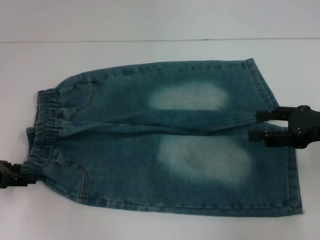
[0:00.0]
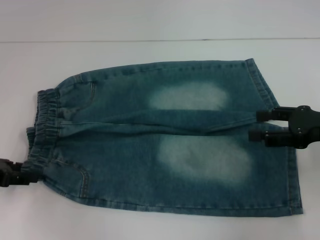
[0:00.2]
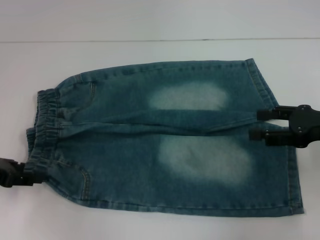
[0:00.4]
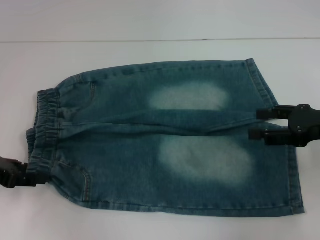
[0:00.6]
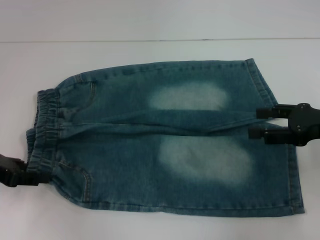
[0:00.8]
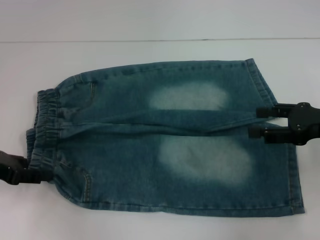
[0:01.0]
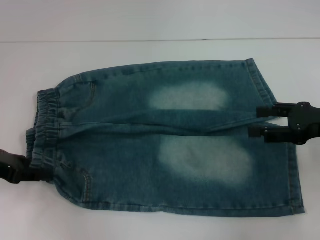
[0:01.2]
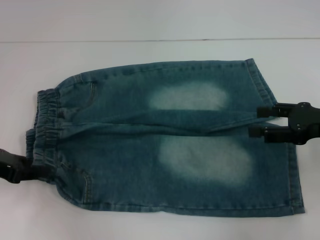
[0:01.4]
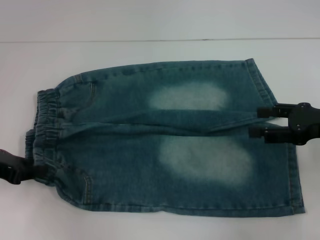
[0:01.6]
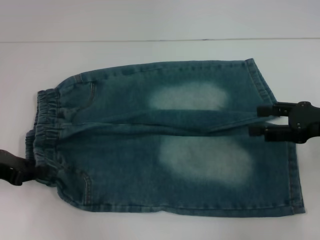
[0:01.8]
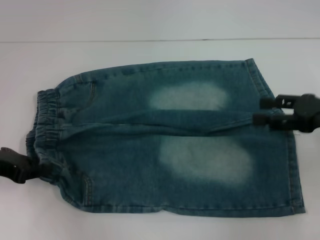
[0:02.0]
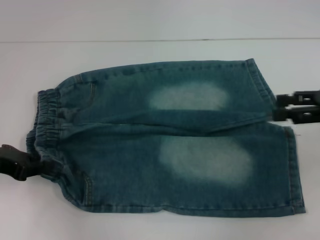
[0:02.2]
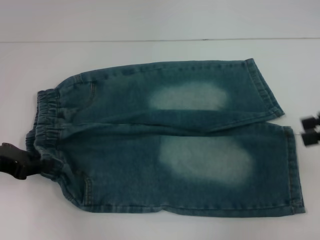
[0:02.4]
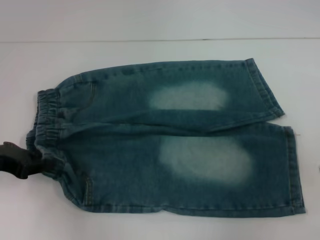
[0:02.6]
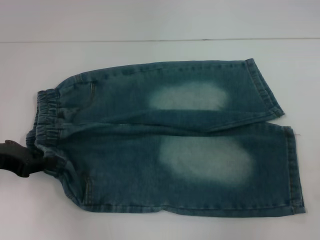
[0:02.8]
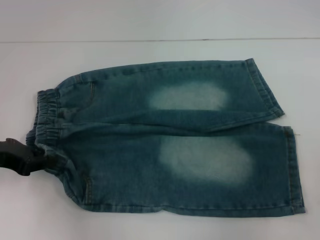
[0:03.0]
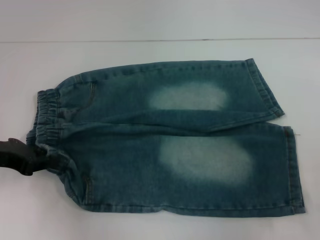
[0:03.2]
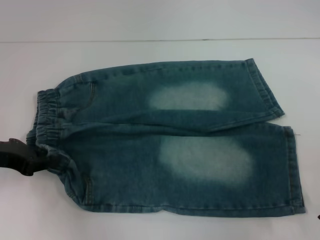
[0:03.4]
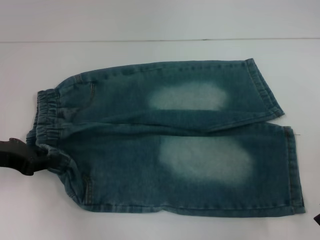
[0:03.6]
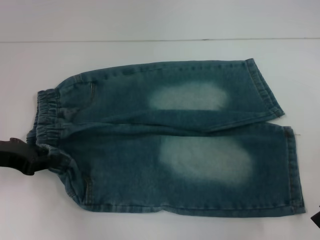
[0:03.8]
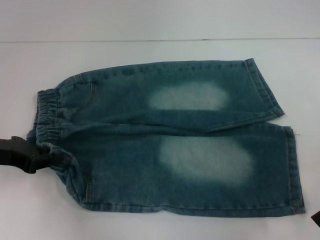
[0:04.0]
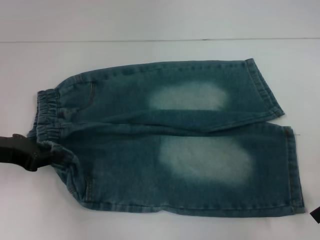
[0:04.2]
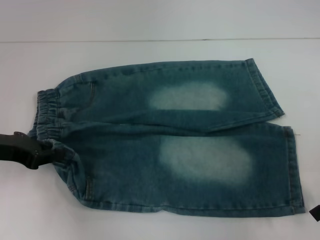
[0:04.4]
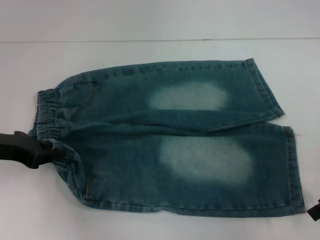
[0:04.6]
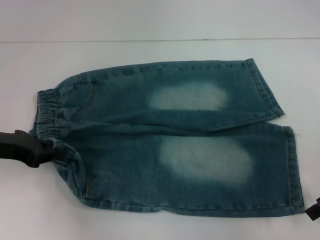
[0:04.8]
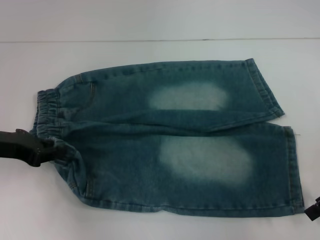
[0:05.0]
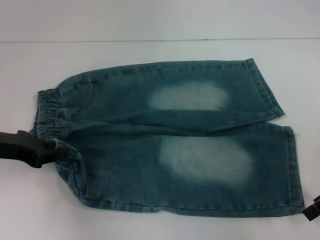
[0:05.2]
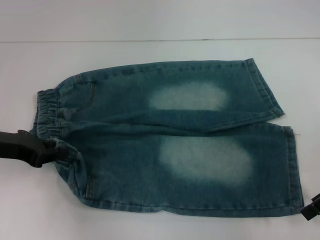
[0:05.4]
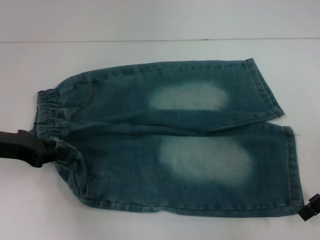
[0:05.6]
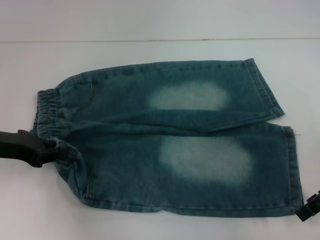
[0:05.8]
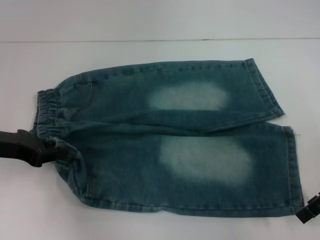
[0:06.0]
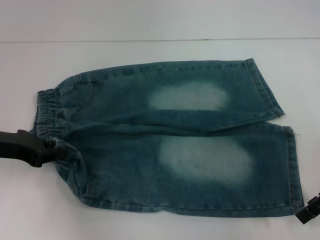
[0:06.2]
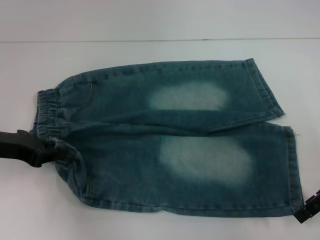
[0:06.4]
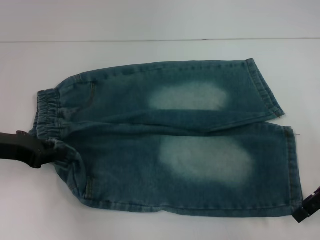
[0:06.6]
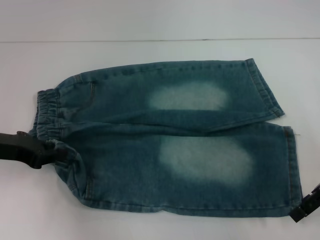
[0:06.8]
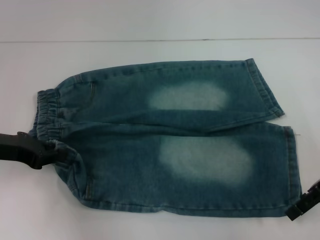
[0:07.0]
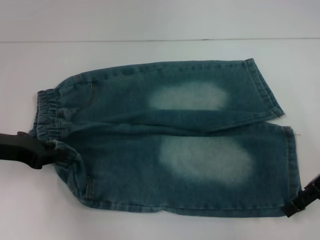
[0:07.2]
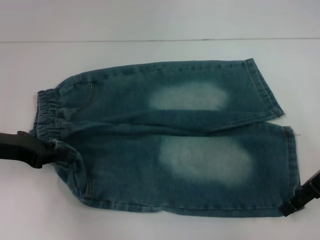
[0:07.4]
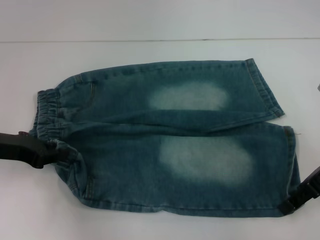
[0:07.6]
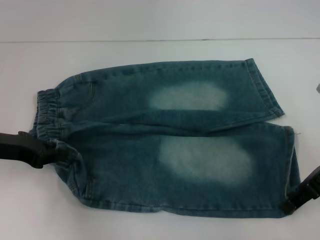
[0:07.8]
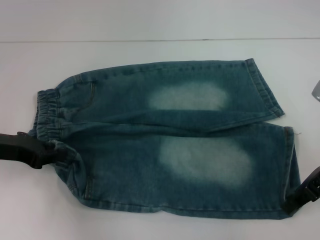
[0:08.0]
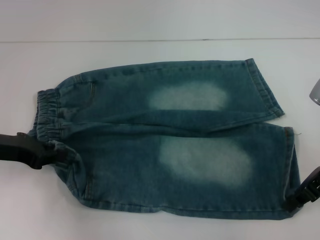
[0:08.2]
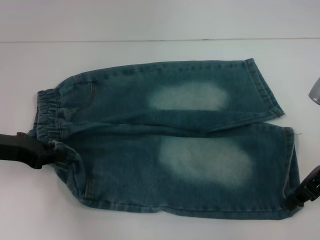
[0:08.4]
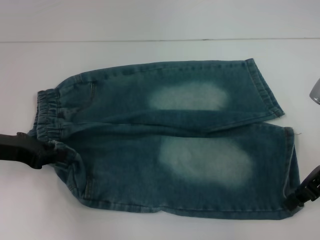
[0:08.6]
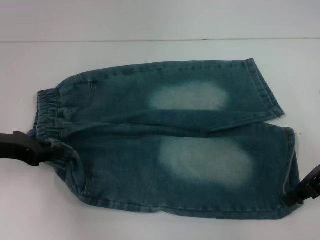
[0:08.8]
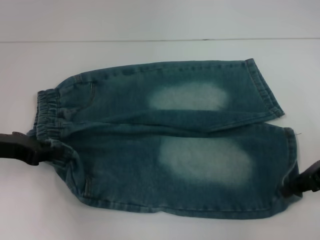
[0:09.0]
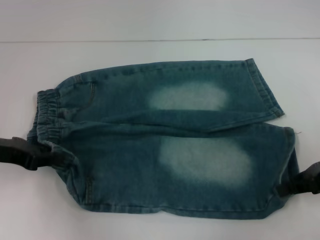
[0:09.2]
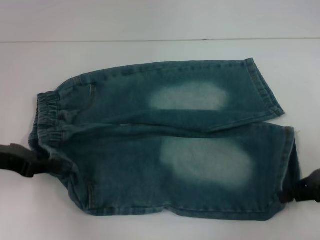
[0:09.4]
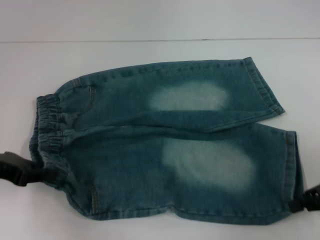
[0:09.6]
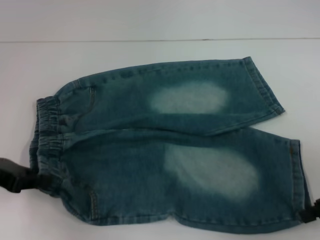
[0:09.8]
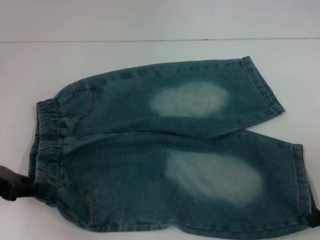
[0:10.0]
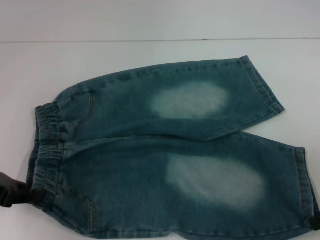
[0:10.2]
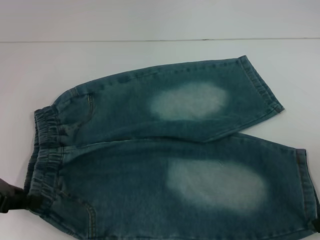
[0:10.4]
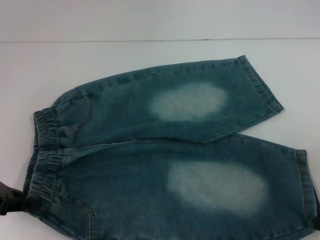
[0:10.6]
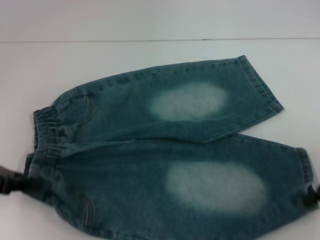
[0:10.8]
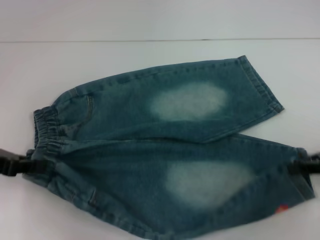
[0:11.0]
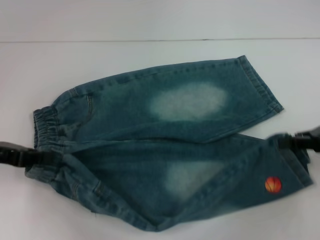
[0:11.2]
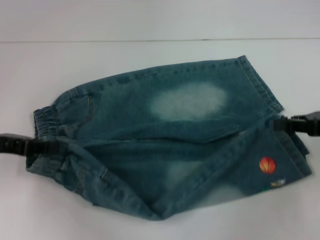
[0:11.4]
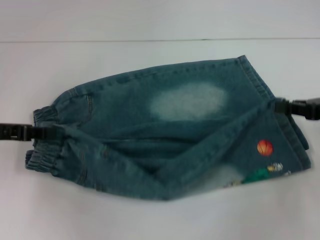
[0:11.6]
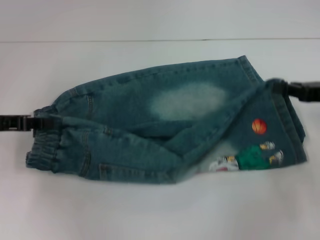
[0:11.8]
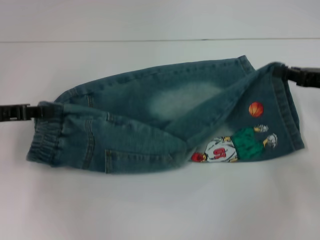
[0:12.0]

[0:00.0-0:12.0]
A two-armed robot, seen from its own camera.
Step, 0:01.8 to 0:08.6: Grab the lower right pant leg with your right hand.
0:00.0 to 0:01.6: There are only small adjustments of the grippers.
0:01.6 to 0:03.0: The right gripper shifts by roughly 5 cm.
0:03.0 to 0:06.0: The grippers stay close to where they were, moving slightly.
0:06.0 to 0:07.6: The grippers make only small movements.
0:07.6 to 0:09.0: The right gripper closes.
0:09.0 to 0:10.4: The left gripper ends up about 5 cm from where it was. The right gripper heads backward, covering about 5 cm.
0:10.4 to 0:12.0: The left gripper goes roughly 5 cm forward. Meanwhile the right gripper heads forward, covering some 10 cm.

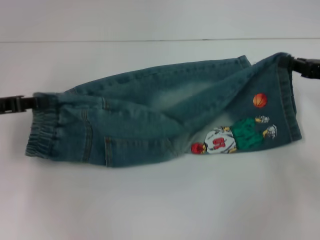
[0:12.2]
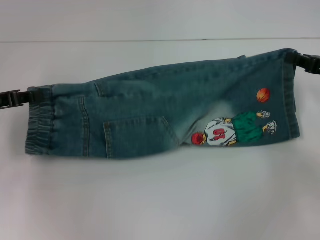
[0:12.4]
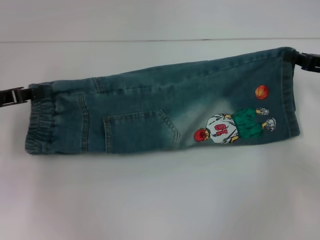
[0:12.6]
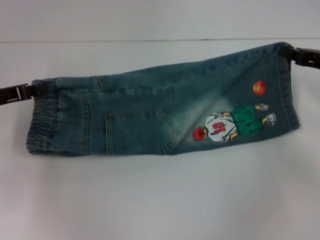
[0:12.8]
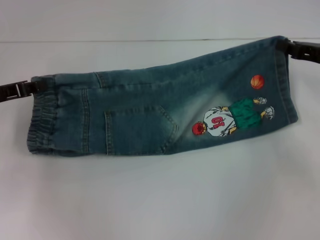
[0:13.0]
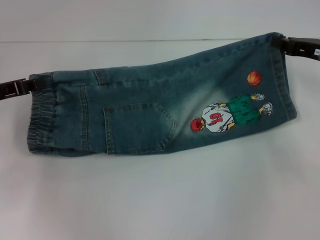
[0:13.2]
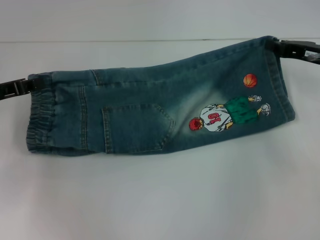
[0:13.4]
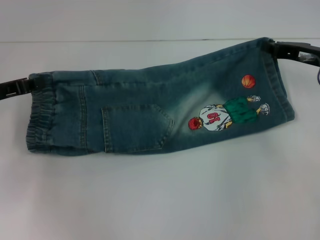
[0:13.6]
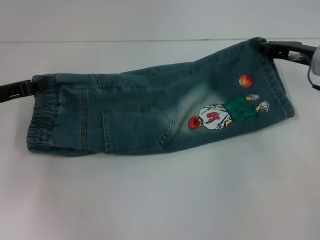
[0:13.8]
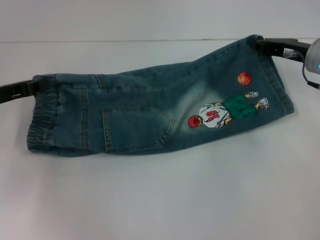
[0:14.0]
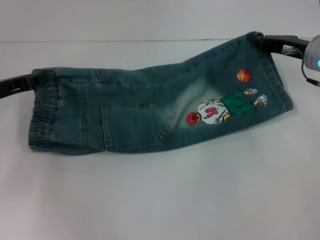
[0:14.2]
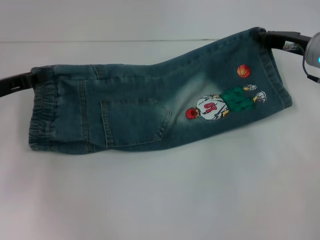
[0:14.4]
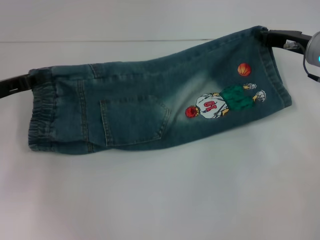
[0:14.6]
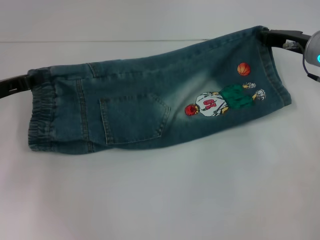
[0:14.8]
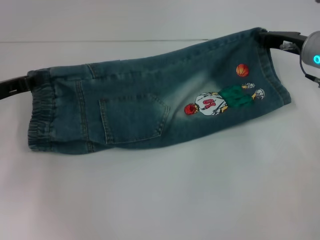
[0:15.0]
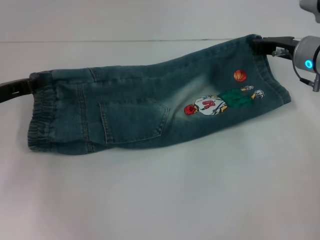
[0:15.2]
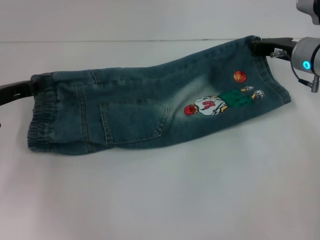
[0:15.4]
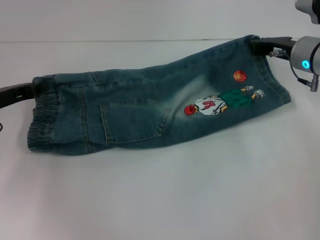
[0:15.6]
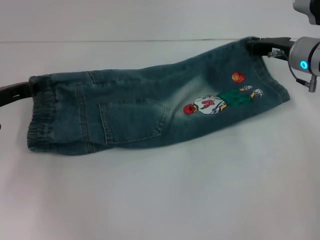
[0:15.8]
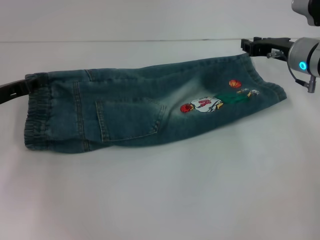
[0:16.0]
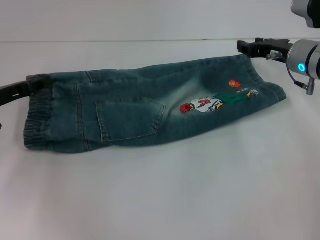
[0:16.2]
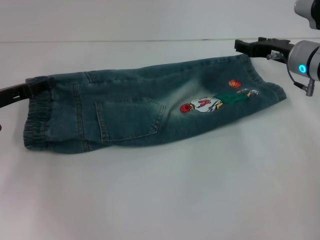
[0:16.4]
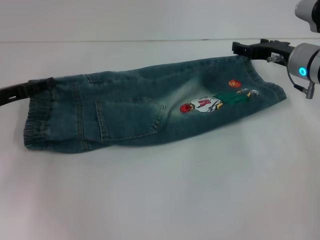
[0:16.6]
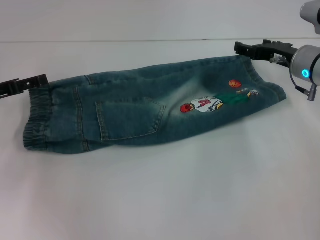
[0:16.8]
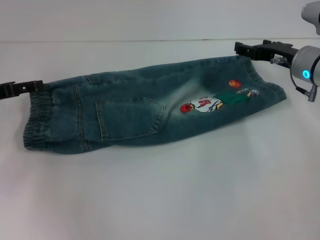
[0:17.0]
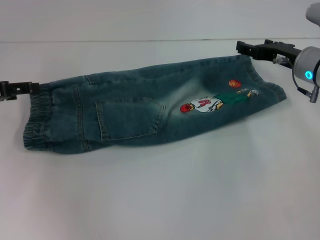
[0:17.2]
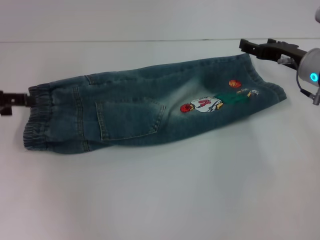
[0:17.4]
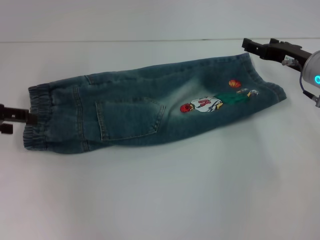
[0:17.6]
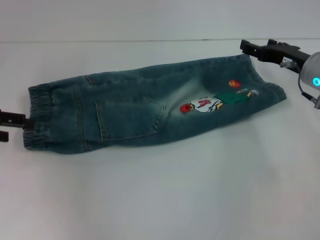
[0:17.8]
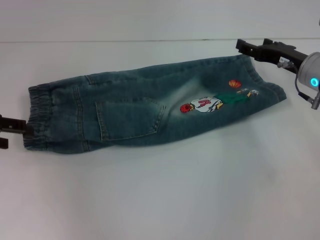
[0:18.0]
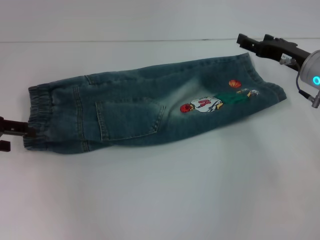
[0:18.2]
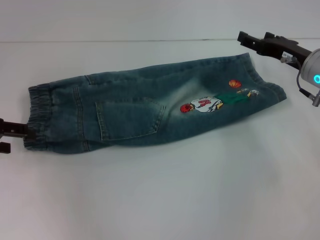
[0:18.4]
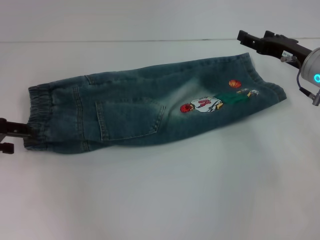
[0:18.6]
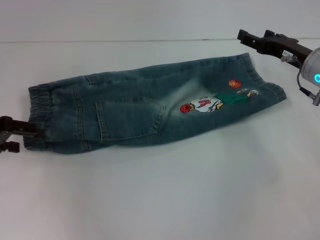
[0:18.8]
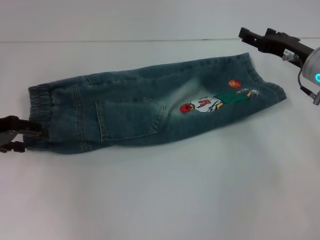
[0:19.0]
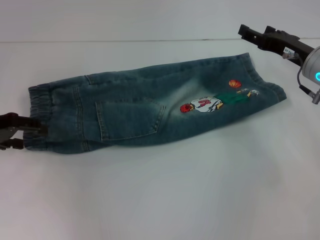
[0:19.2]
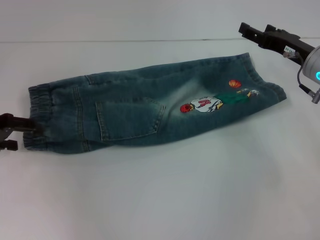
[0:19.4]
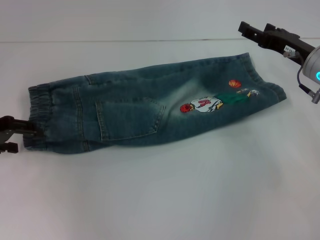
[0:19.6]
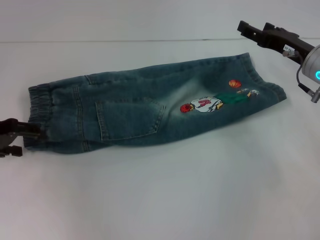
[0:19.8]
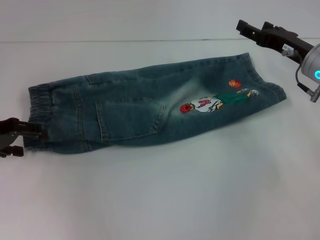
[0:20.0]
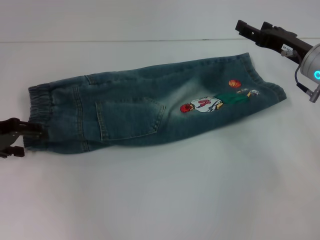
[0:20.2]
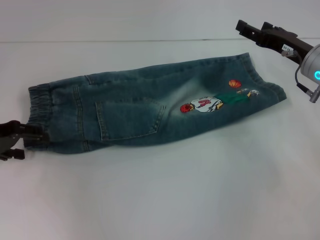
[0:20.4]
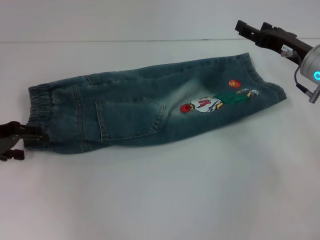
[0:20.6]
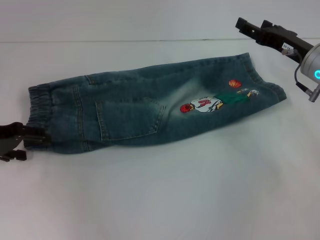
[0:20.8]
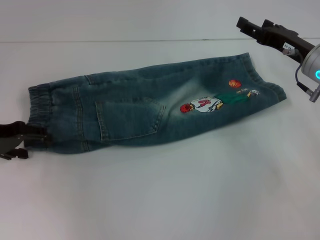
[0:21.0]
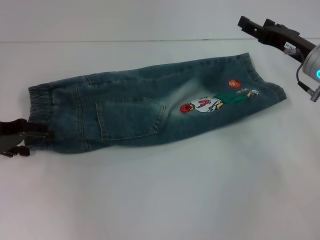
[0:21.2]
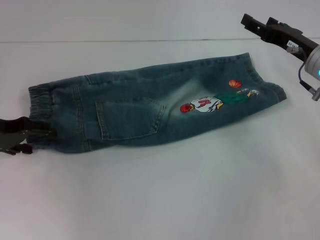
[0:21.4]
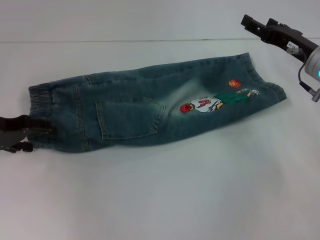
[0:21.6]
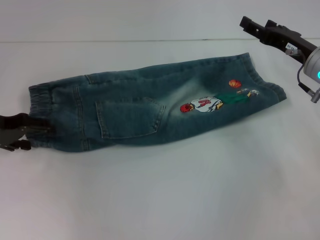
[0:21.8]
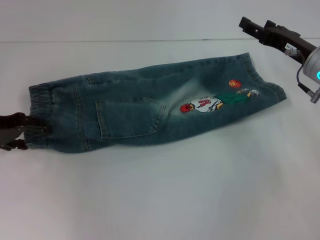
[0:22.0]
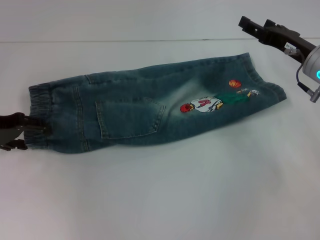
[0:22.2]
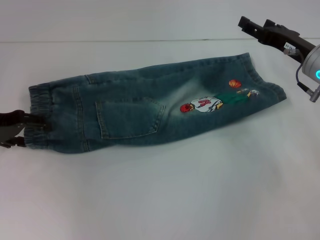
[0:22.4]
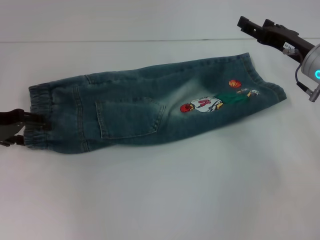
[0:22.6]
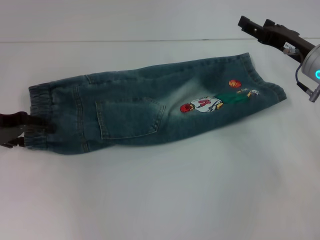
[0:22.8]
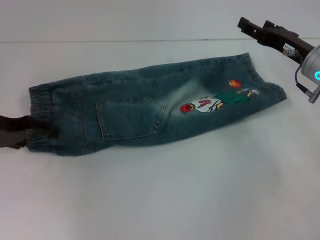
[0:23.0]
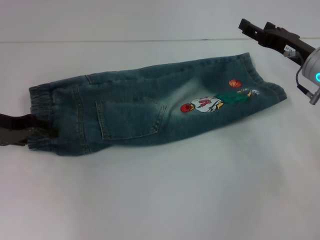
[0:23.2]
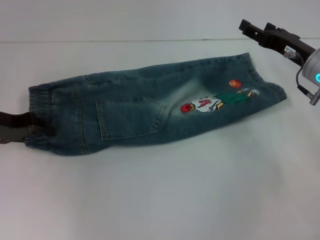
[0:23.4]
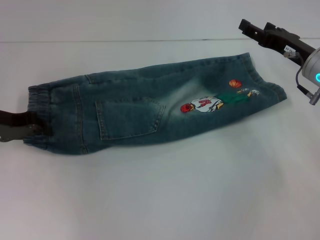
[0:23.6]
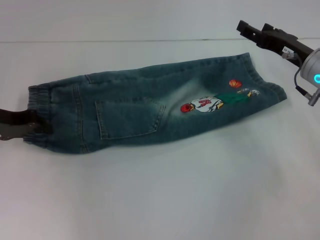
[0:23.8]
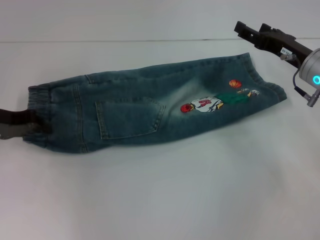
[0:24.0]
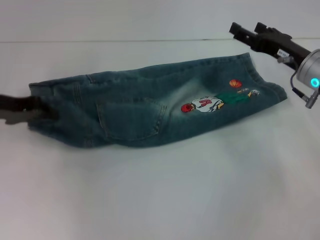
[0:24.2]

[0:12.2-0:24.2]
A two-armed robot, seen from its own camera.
Step, 0:12.2 to 0:15.8: Fold upward with your right hand.
Step, 0:16.0 to 0:16.6: Fold upward with your left hand.
Step, 0:16.8 to 0:24.0: Hold the waistband with your left hand.
0:12.2 to 0:13.8: The right gripper travels forward and to the left by about 10 cm.
0:13.8 to 0:15.2: The grippers make only small movements.
0:15.2 to 0:16.6: The left gripper opens its fingers; the right gripper opens its fingers.
0:16.6 to 0:18.2: The left gripper is displaced upward by approximately 5 cm.
0:18.2 to 0:21.2: There are only small adjustments of the grippers.
0:21.2 to 0:22.6: The two grippers keep their place.
0:22.6 to 0:24.2: The left gripper closes up.
